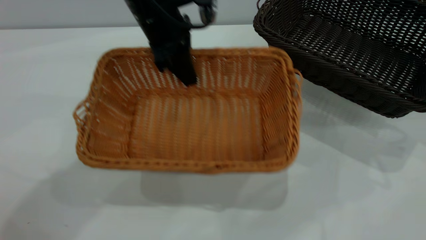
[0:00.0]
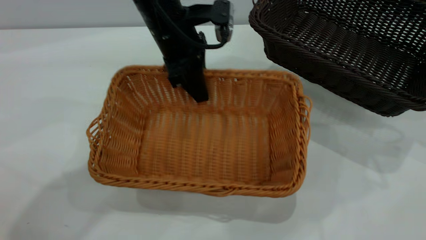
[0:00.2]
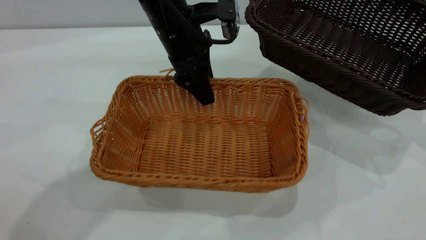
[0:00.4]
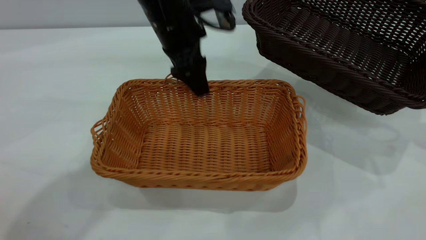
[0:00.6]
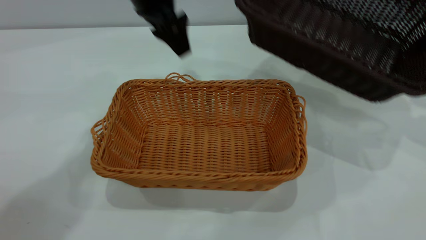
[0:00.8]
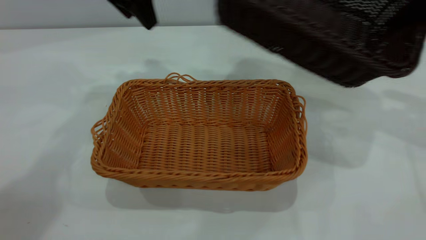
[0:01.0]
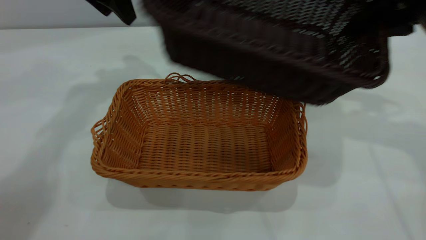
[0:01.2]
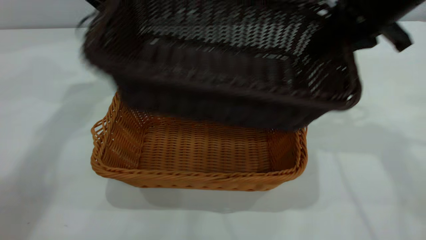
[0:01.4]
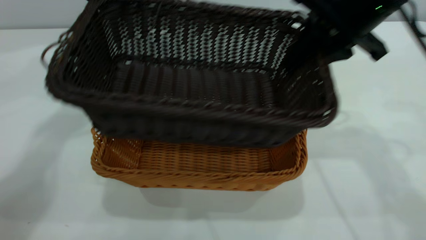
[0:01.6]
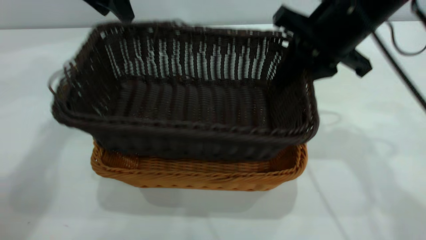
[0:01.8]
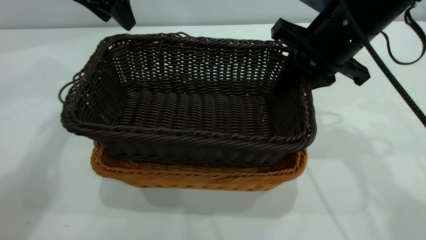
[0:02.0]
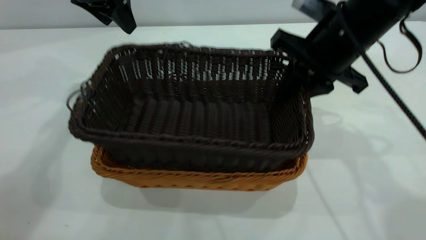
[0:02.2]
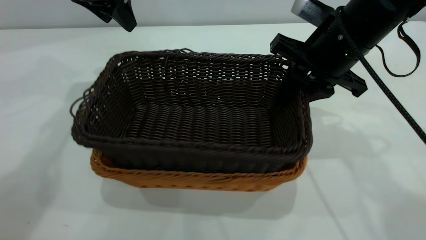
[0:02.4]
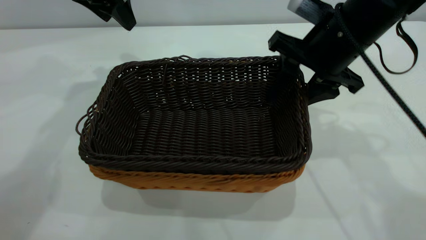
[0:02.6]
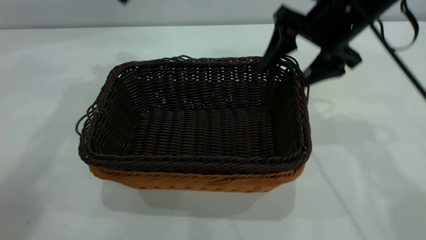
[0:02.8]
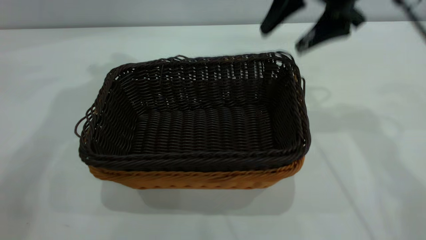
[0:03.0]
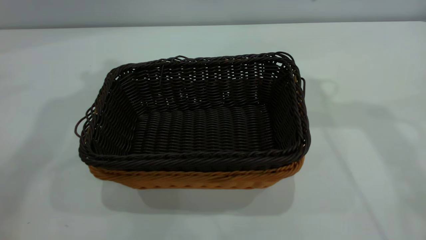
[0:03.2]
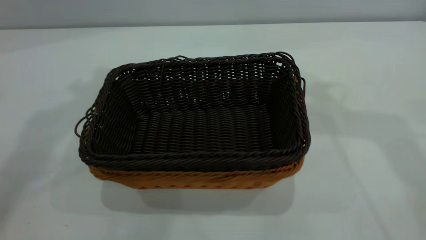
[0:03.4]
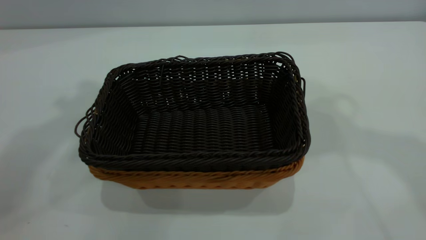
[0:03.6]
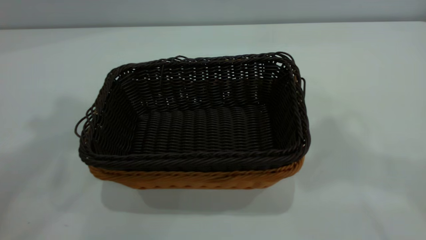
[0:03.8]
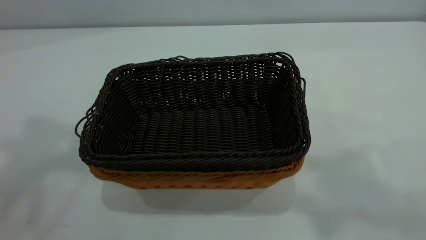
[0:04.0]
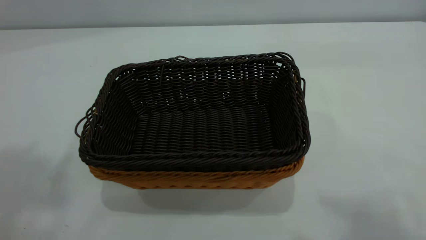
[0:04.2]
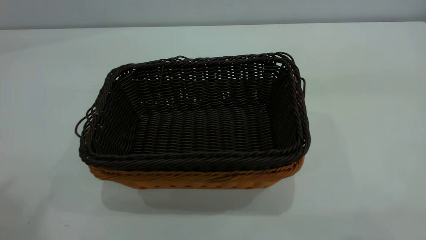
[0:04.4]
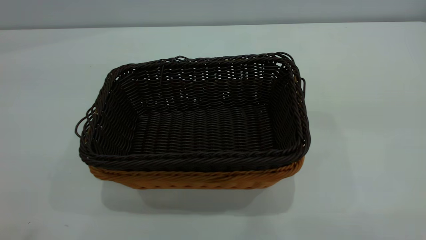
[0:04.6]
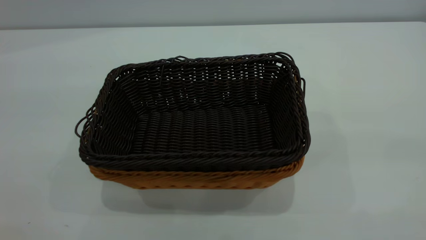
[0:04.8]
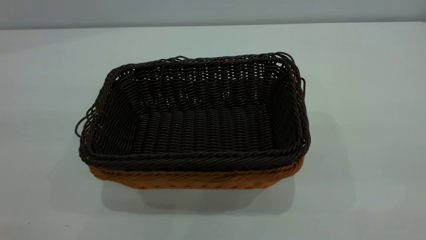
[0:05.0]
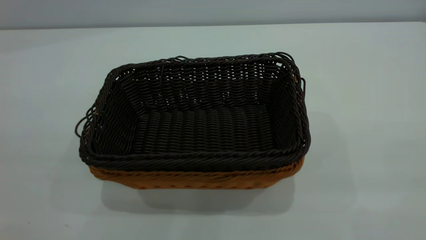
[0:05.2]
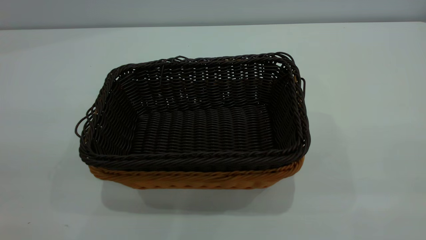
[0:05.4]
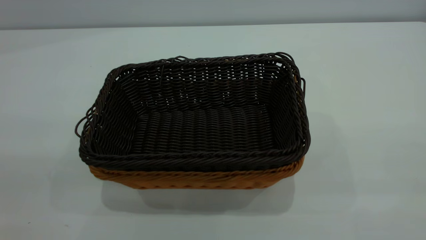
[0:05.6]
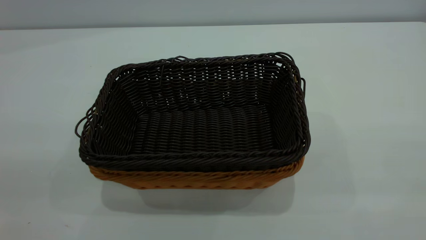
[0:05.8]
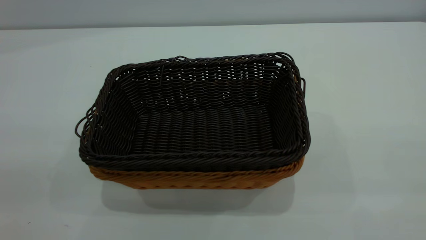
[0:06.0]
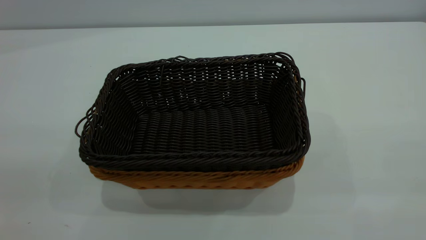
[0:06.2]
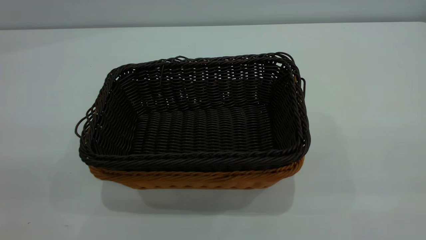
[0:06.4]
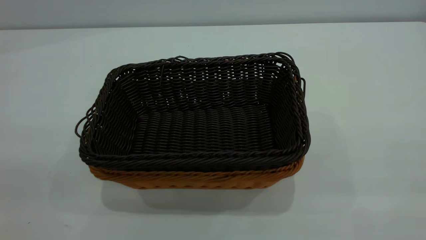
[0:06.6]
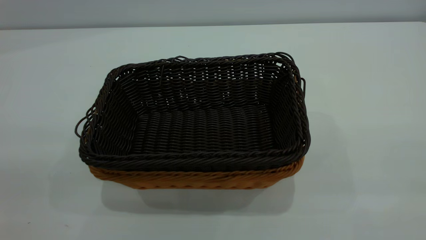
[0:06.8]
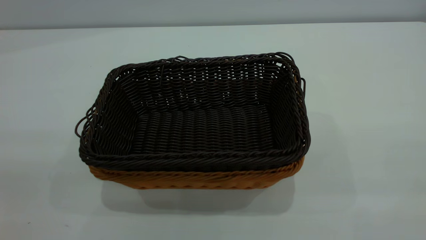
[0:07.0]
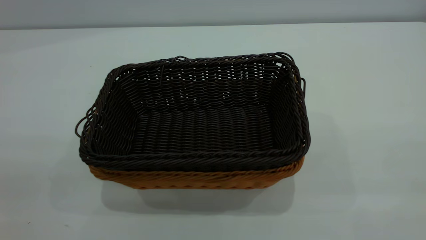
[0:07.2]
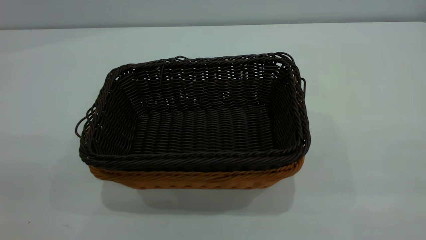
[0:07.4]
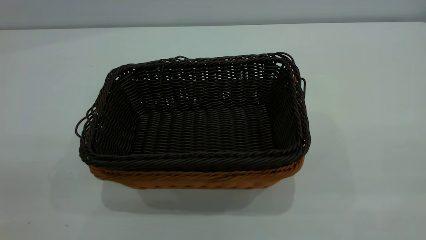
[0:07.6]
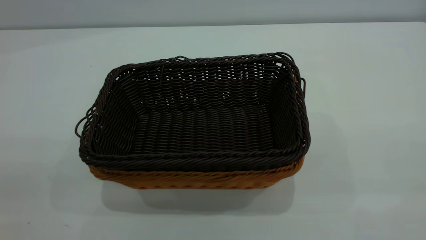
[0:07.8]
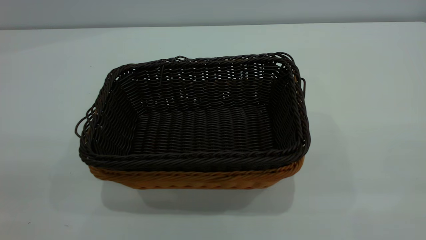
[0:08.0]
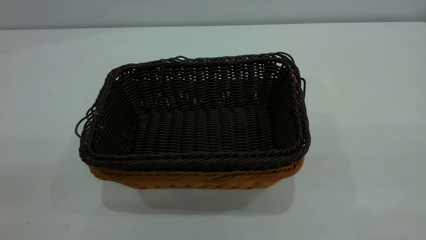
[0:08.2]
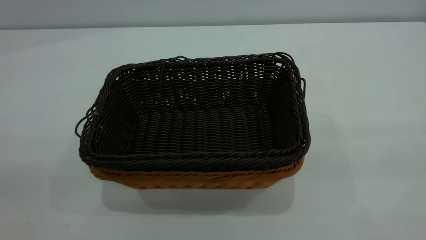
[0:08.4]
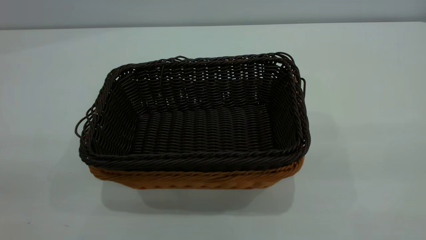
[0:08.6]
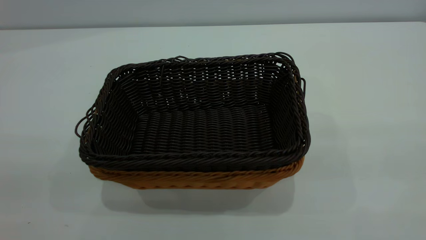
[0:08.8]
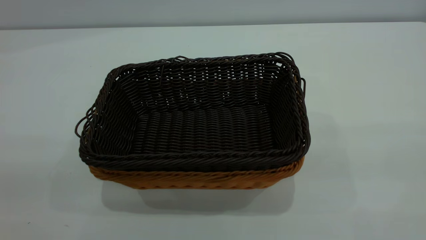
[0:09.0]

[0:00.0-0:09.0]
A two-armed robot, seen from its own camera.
Task of the whole recording: the left gripper grasp the brown basket and place it in the center of the table, the right gripper grasp the black basket and place it inside the brown one.
Step, 0:00.0 to 0:00.8: Place the light-colored basket in the center.
Step, 0:01.0 to 0:02.8: Place the dark basket on top of the light basket.
0:00.0 to 0:01.6: The left gripper heads to the left, upward and forward, covering approximately 15 cm, and opens; the right gripper shifts approximately 20 cm to the left.
0:01.6 to 0:03.0: The left gripper travels upward by roughly 10 cm. Meanwhile the right gripper is displaced forward by some 5 cm, and opens up.
0:03.0 to 0:04.4: Both grippers move backward and upward, roughly 40 cm.
